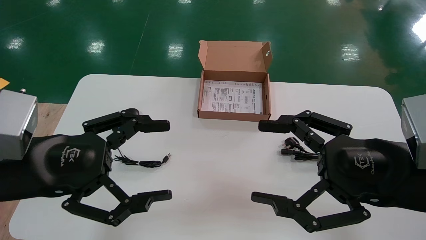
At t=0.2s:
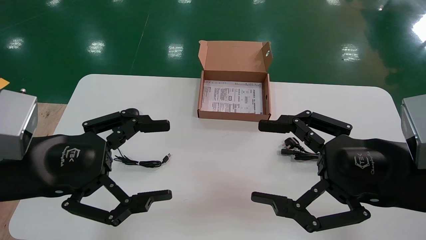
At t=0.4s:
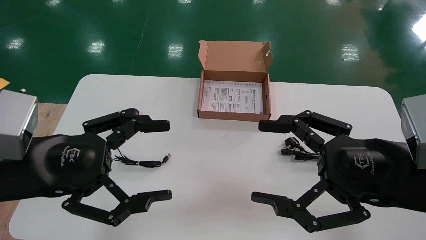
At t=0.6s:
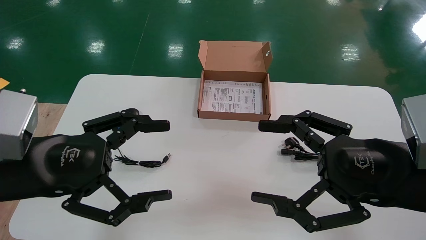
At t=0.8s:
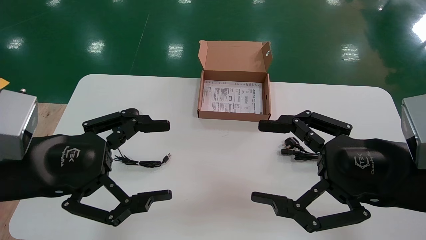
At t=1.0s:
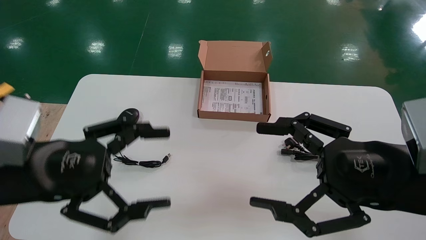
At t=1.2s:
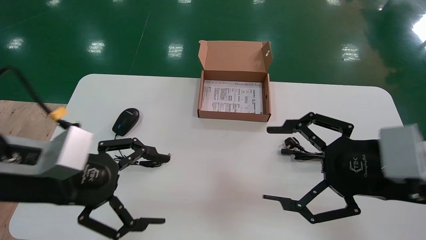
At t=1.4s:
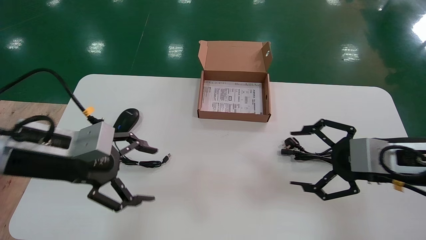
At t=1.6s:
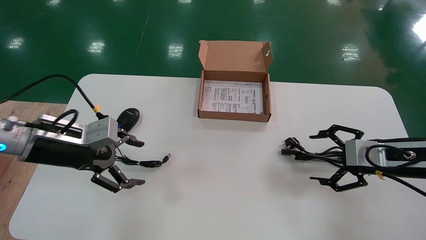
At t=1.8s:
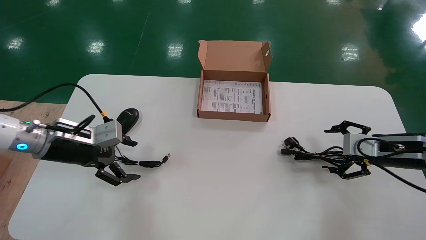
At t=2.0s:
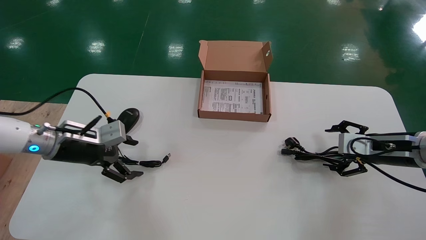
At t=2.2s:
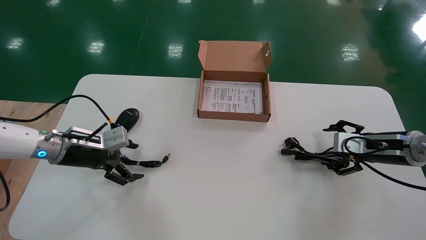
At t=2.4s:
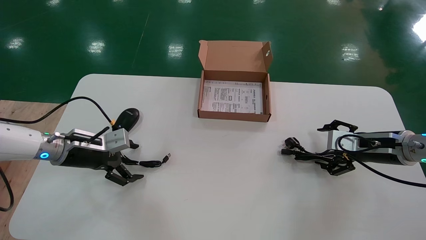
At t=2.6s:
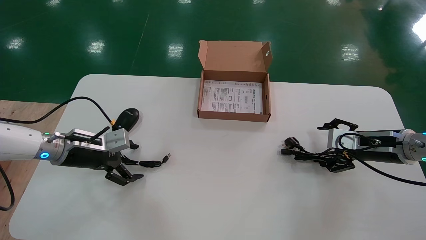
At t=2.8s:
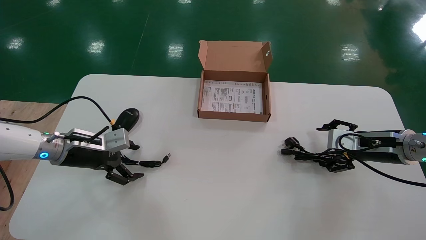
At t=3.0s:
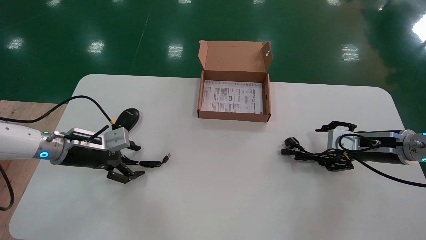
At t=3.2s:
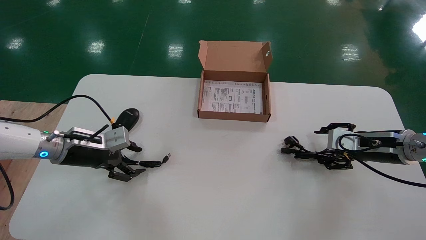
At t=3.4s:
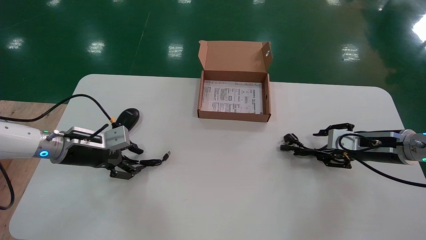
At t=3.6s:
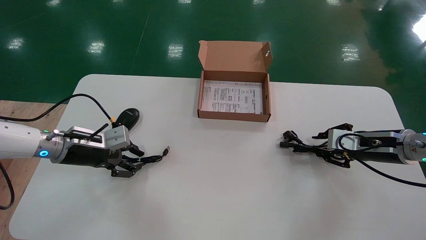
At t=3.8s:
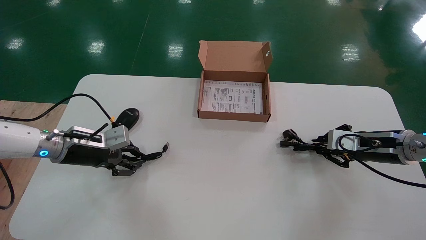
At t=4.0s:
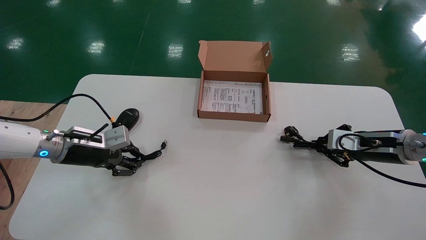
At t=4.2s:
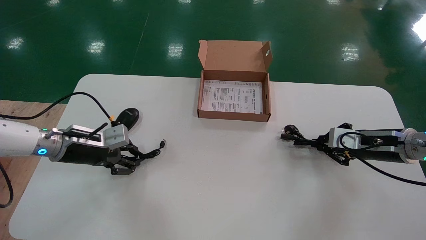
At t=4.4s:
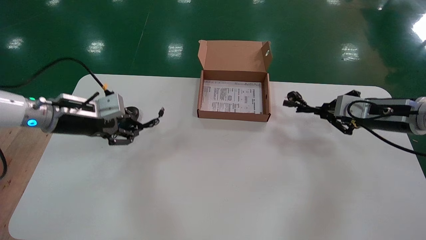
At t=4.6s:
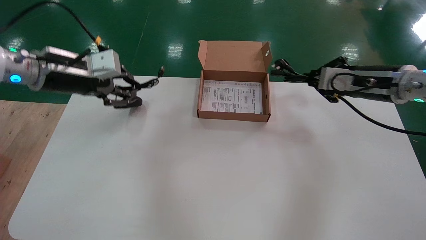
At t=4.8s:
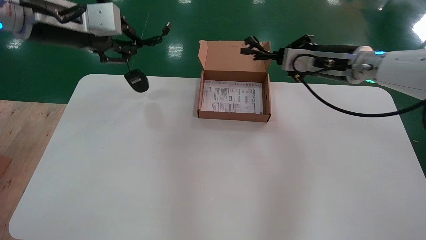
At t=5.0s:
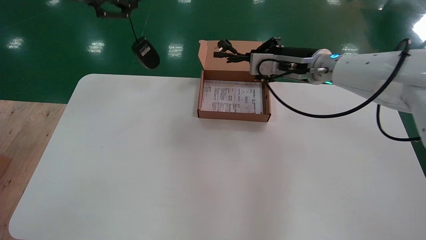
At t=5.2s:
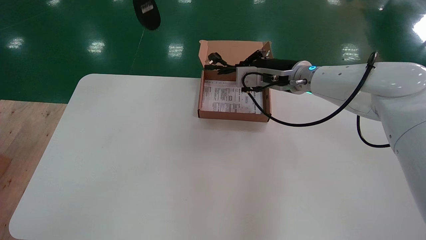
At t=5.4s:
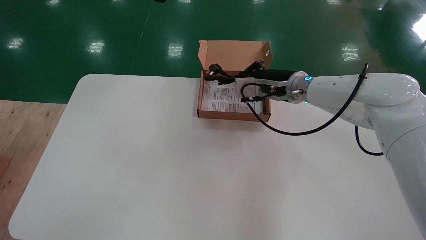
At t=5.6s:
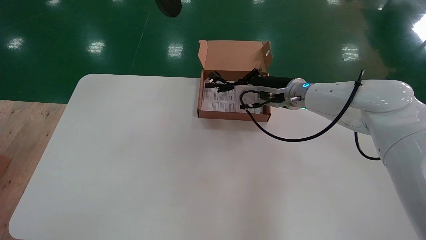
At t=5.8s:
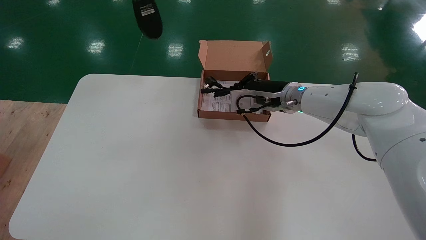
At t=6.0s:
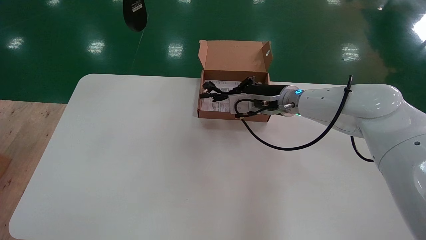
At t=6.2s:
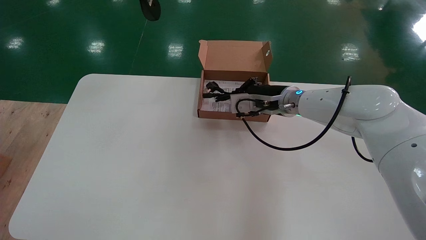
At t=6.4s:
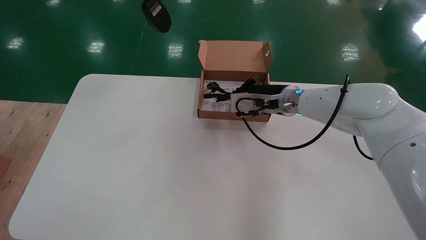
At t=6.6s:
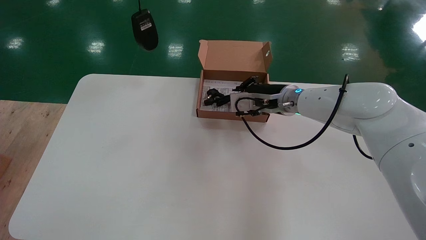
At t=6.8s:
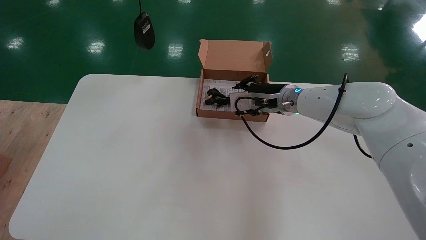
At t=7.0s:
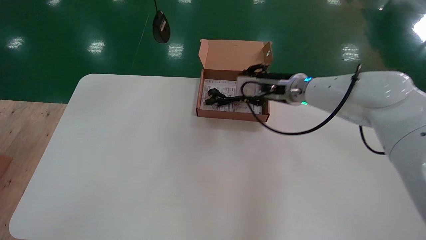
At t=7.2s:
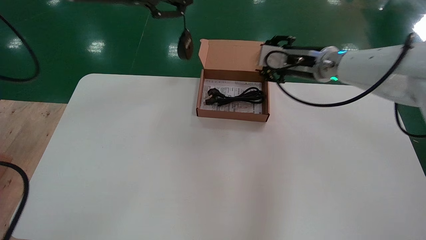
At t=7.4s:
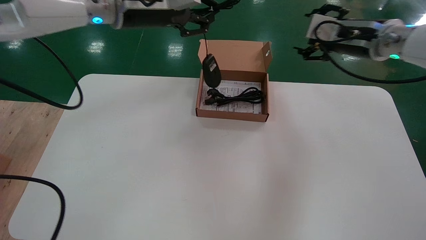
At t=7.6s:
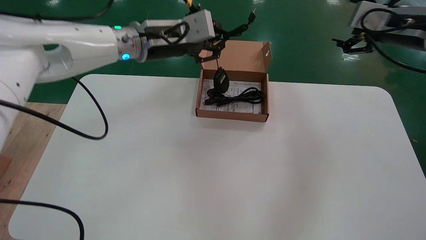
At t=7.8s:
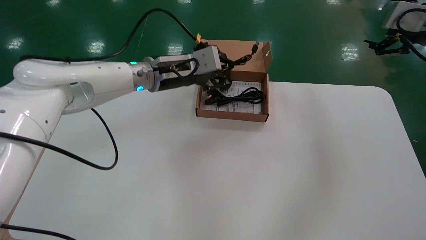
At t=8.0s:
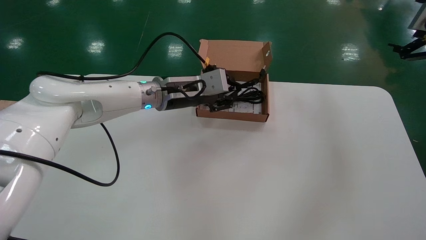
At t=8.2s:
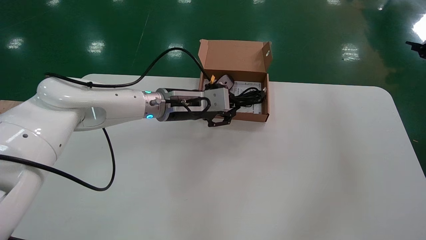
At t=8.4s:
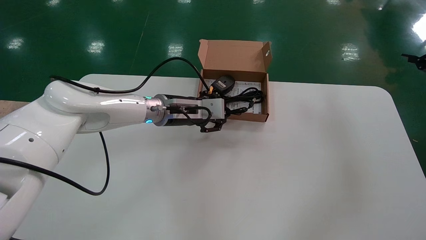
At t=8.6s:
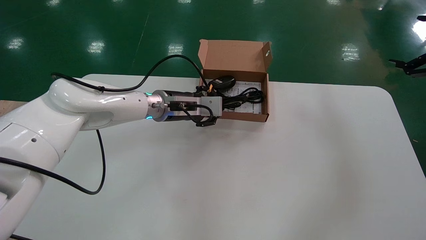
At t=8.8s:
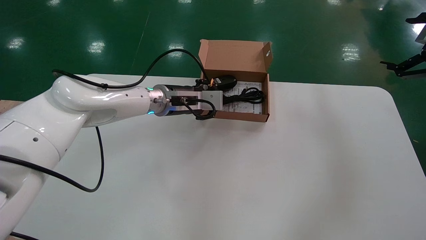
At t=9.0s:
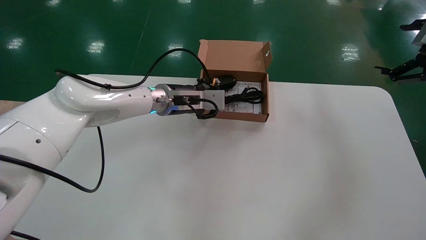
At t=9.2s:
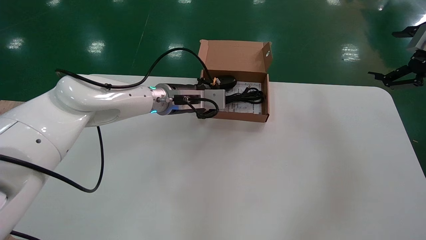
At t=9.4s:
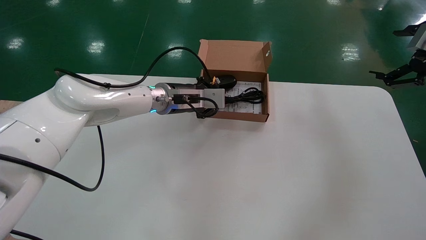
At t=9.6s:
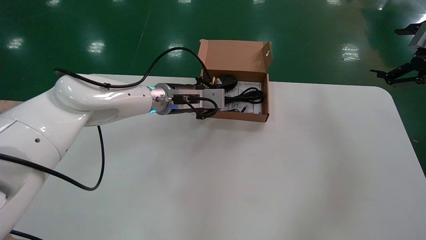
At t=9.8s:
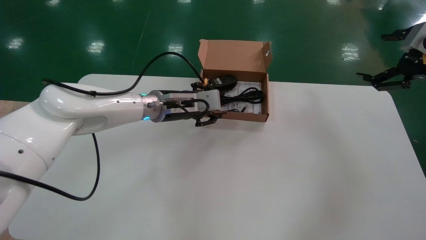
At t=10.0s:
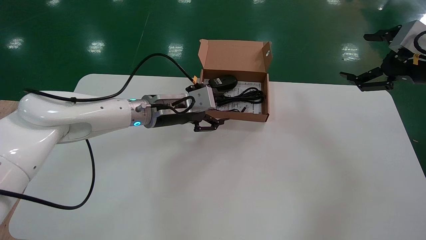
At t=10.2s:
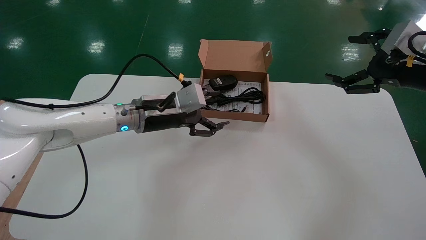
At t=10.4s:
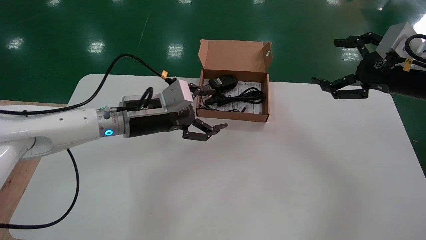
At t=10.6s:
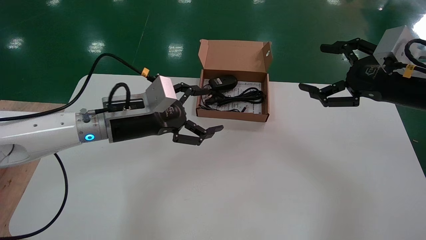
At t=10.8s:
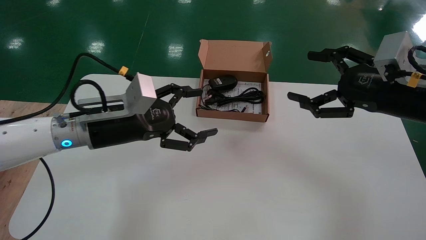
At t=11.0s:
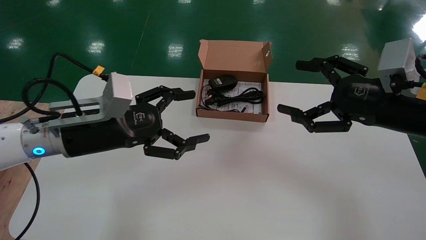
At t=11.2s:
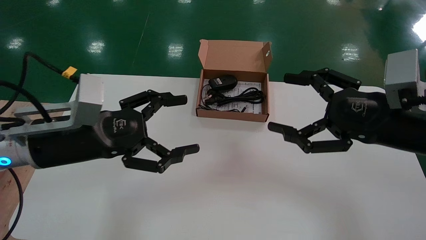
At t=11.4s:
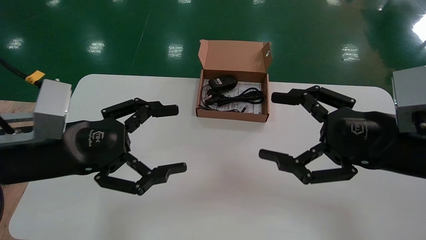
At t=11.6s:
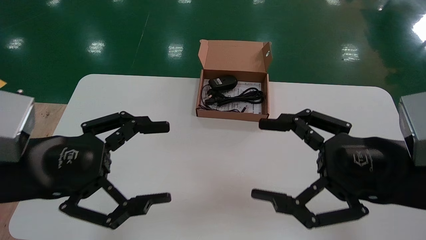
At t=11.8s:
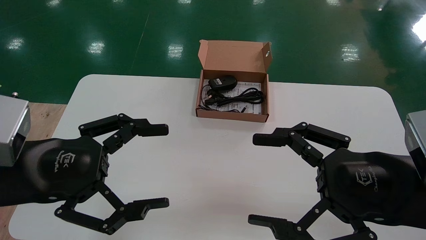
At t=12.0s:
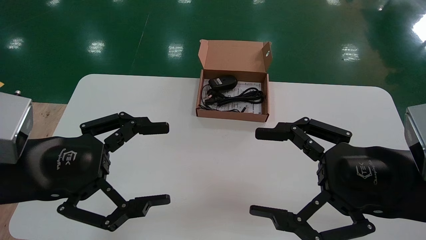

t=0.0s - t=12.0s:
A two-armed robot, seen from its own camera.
Step, t=1.6s - t=4.2s: Simultaneously pick up the mouse and power cord from the accessory packaging area.
Step, t=4.4s - t=9.8s: Place the mouse and power cord into the box.
t=0.0s - t=1.6s: The left gripper moves forward, about 15 cm; the right gripper shifts approximately 15 cm forward and to the right.
t=1.6s - t=3.0s: The right gripper goes some 5 cm forward; the left gripper goes roughly 10 cm forward and downward.
t=3.0s - t=4.4s: The grippers both shift upward by some 10 cm. The left gripper closes, while the right gripper closes.
t=4.4s - t=6.0s: The left gripper shifts roughly 30 cm upward; the right gripper moves to the left, about 20 cm.
t=6.0s - t=7.6s: The left gripper heads downward, to the right and forward, covering about 25 cm; the right gripper heads to the right and upward, covering roughly 25 cm, and opens.
t=7.6s - t=9.0s: The right gripper shifts roughly 10 cm to the right and backward. The left gripper travels downward by roughly 10 cm.
t=9.0s - t=10.4s: The right gripper moves to the left, approximately 10 cm; the left gripper shifts some 10 cm backward and to the left, and opens its fingers.
t=10.4s - t=12.0s: The left gripper heads backward and to the left, covering approximately 25 cm; the right gripper heads backward, to the left and downward, covering some 20 cm.

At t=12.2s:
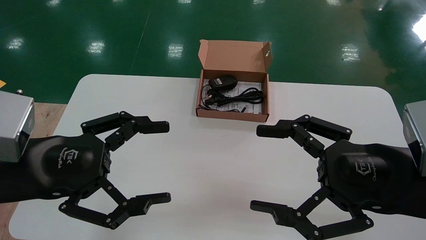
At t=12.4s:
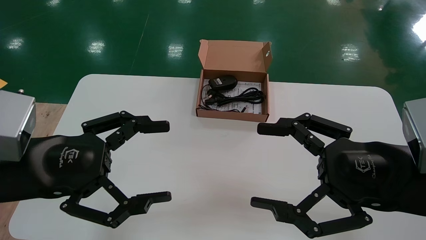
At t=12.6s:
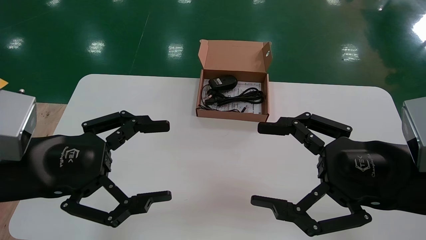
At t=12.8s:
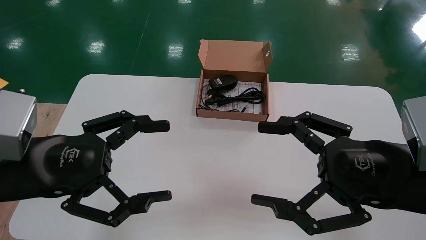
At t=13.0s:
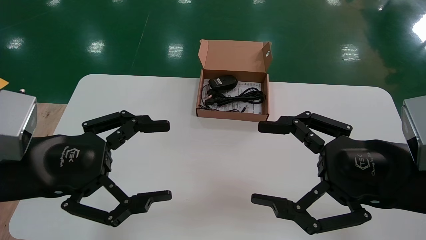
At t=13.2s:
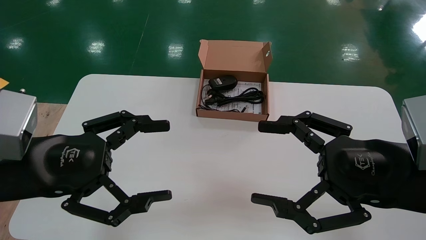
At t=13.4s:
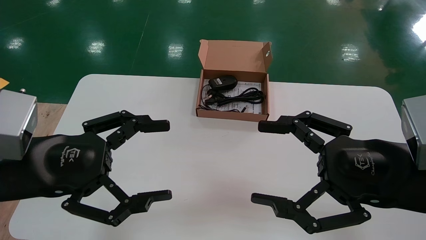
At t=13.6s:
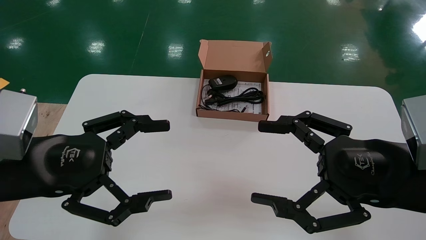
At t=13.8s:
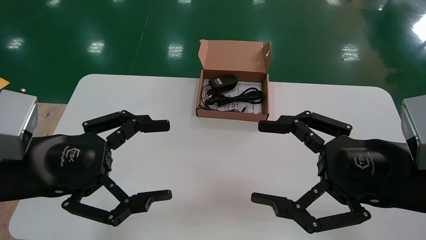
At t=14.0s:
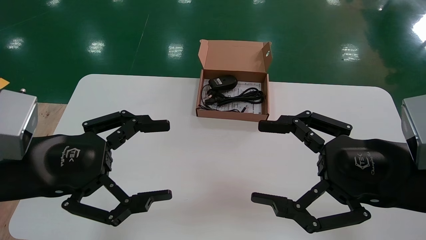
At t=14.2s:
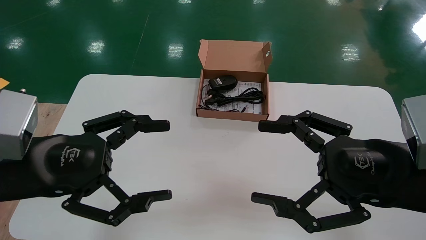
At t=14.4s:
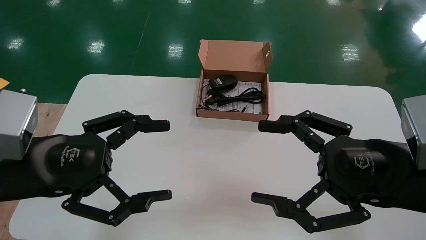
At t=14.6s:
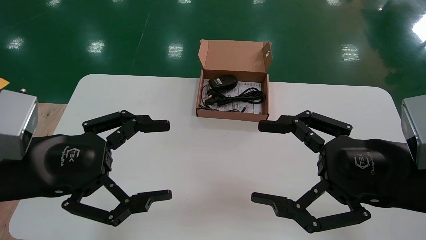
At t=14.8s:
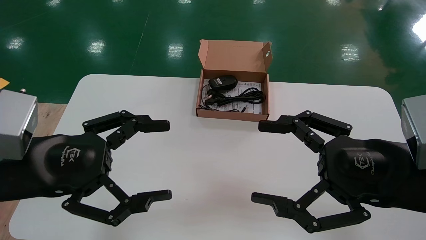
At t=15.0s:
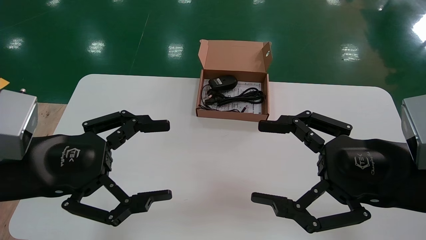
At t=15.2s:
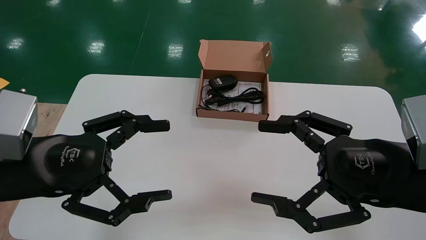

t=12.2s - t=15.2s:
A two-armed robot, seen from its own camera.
t=12.2s - t=15.2s: Both grippers stay about where they are.
